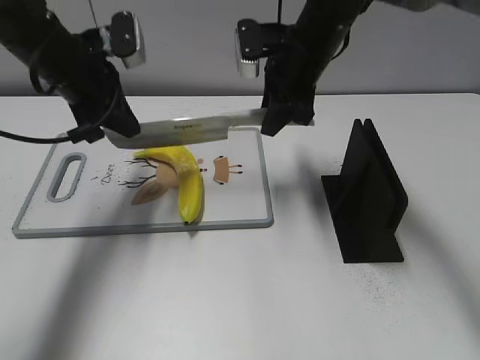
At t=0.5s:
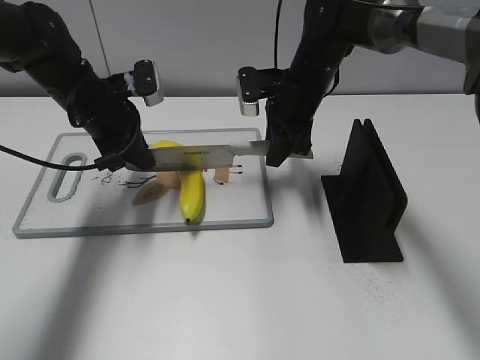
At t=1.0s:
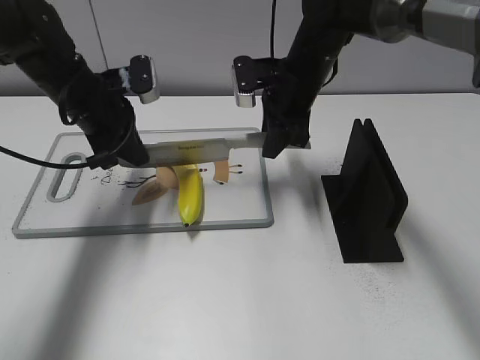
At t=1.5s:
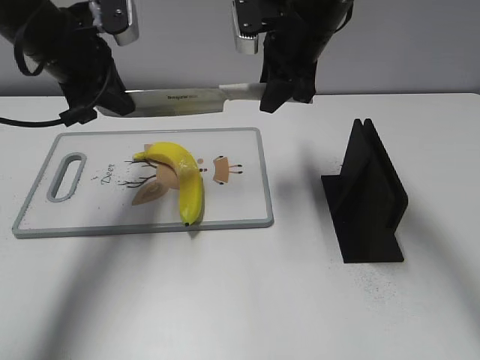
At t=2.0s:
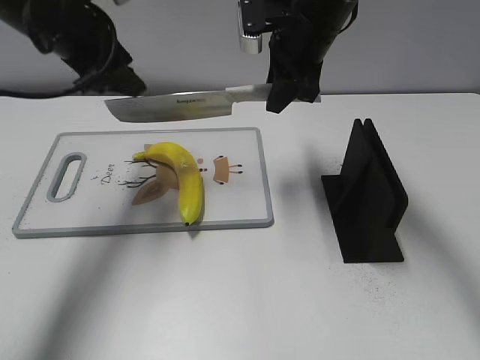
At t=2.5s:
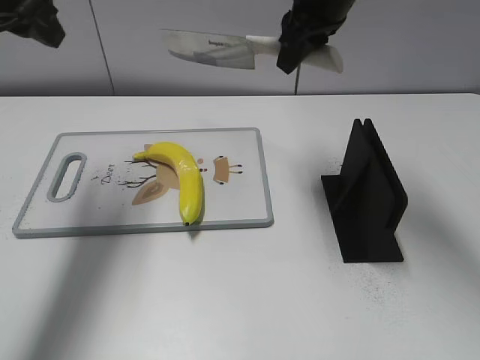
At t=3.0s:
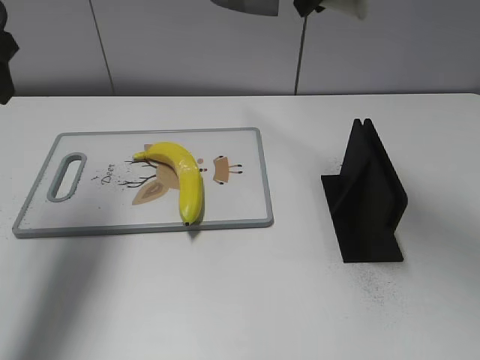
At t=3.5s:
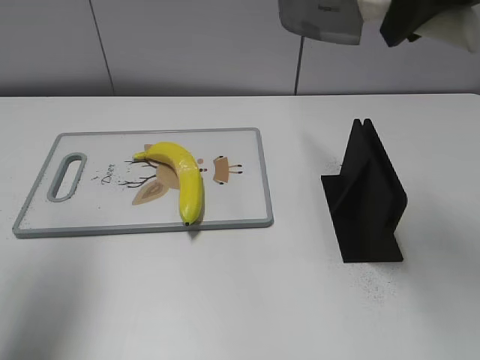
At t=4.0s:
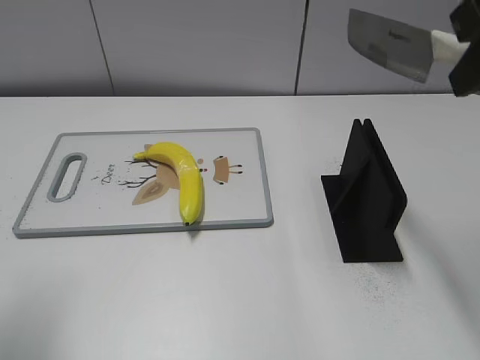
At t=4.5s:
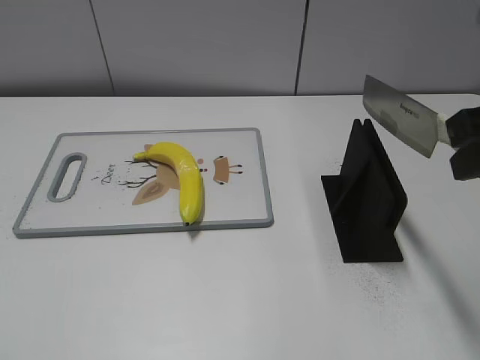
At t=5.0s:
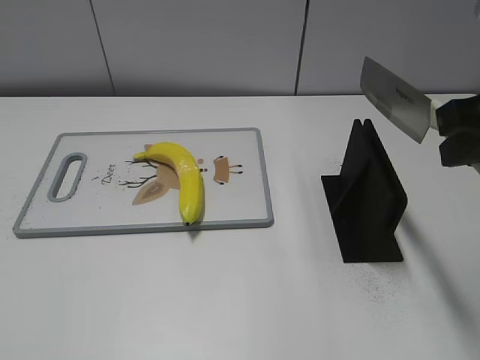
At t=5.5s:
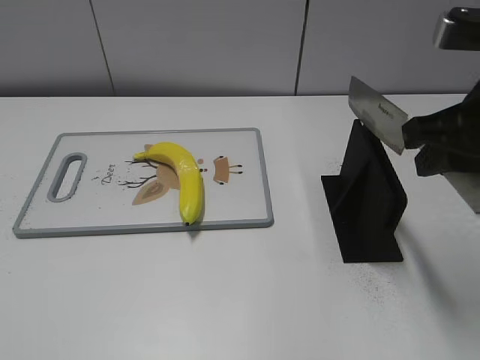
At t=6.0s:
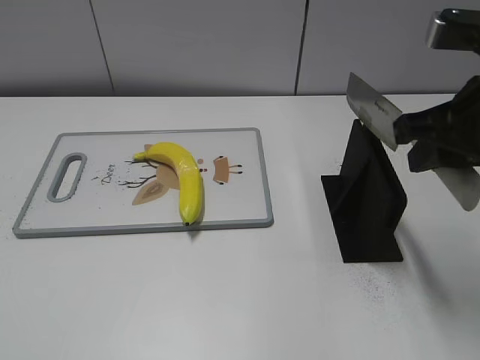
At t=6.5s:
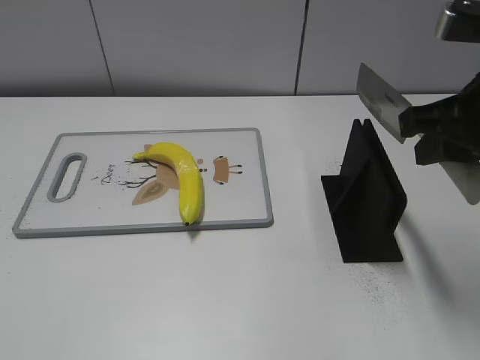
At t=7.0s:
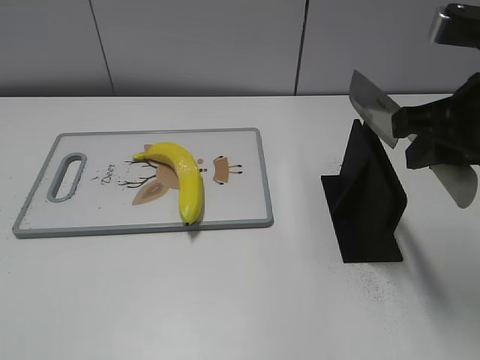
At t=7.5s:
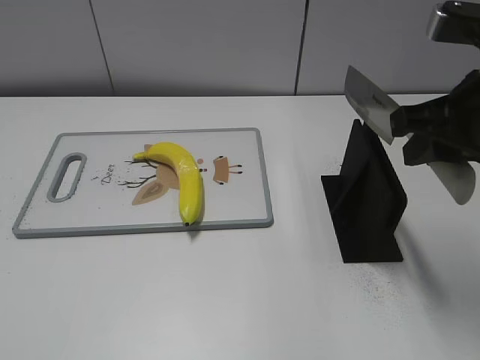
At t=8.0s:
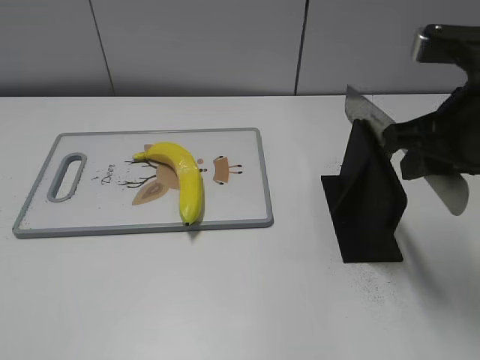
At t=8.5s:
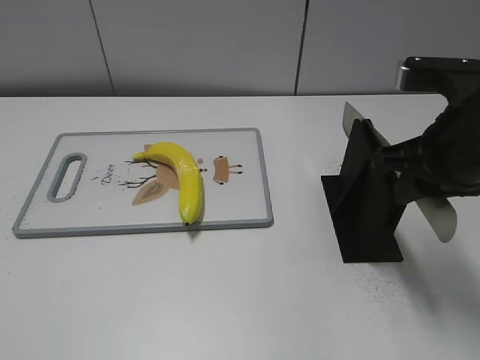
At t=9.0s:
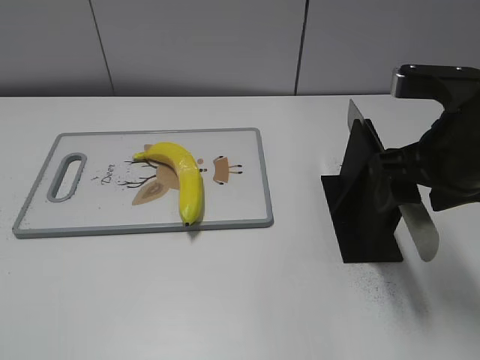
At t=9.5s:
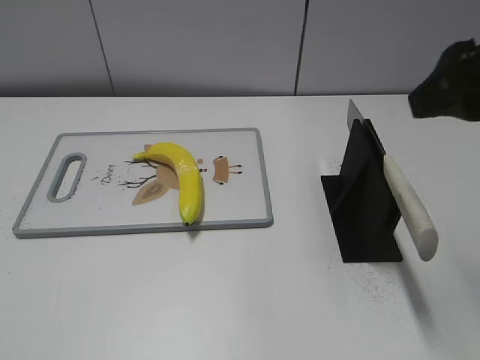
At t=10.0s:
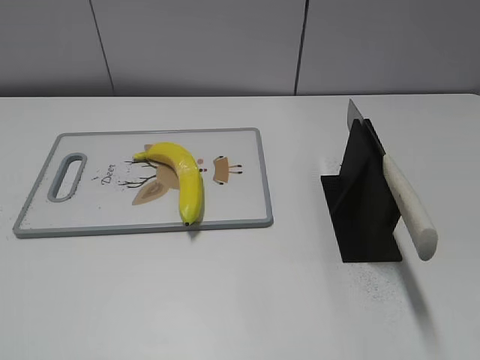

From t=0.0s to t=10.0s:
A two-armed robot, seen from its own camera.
Task of the whole recording: cut plastic banana.
Step, from t=0.0s to t=2.0s: Lift the knife with your right hand.
Step, from t=2.5s to t=3.5s: Cut the banana with your right hand.
Step, from t=4.0s to t=4.5s: Lift the knife with your right hand.
From t=0.0s to t=2.0s: The right gripper moves some 5 cm downward and comes back, while the left gripper goes some 5 cm upward, and opens its fingers.
From t=2.0s to t=4.0s: The right gripper heads backward, upward and to the right, covering approximately 25 cm. Meanwhile the left gripper shifts some 25 cm backward and to the left.
From t=4.0s to t=6.0s: The right gripper moves downward, roughly 10 cm.
From t=6.0s to t=8.0s: The grippers stay close to where they were, moving slightly.
From t=8.0s to t=10.0s: The right gripper moves backward and upward, roughly 15 cm, and opens its fingers.

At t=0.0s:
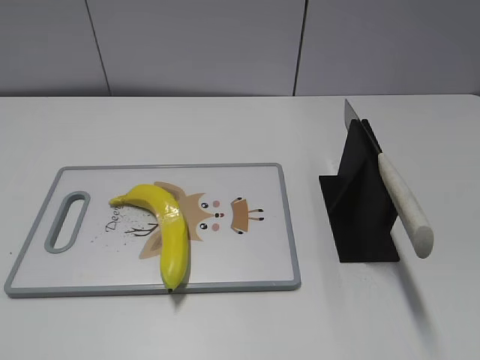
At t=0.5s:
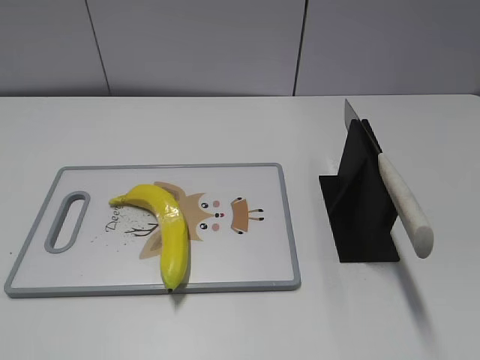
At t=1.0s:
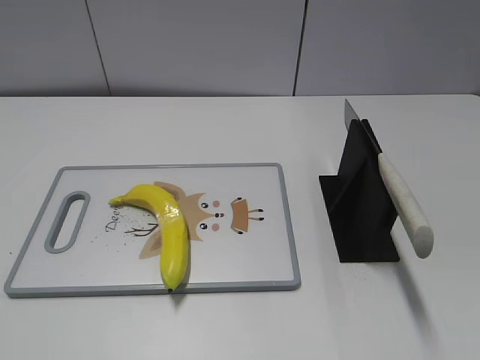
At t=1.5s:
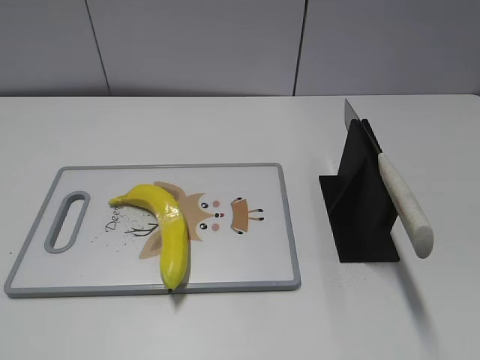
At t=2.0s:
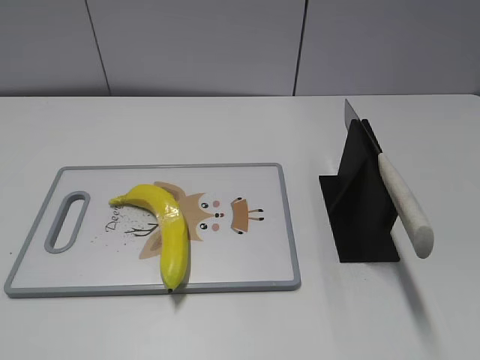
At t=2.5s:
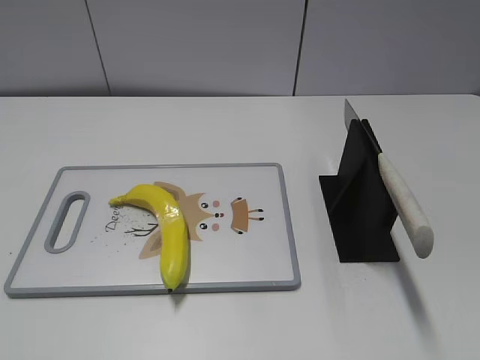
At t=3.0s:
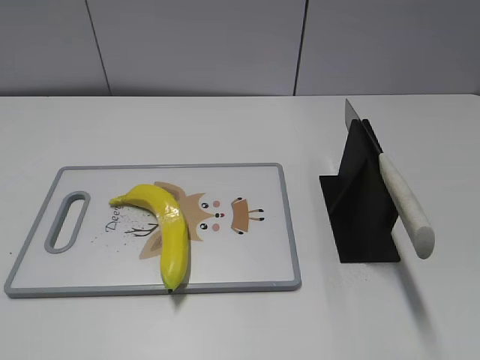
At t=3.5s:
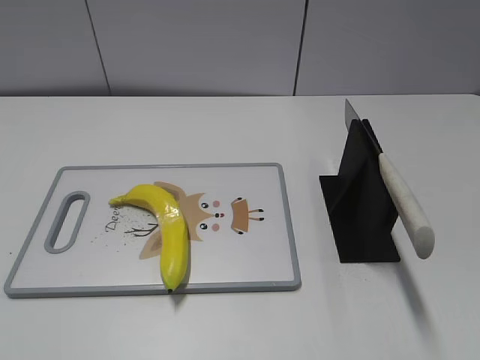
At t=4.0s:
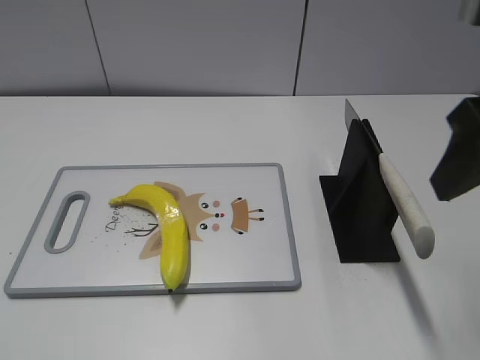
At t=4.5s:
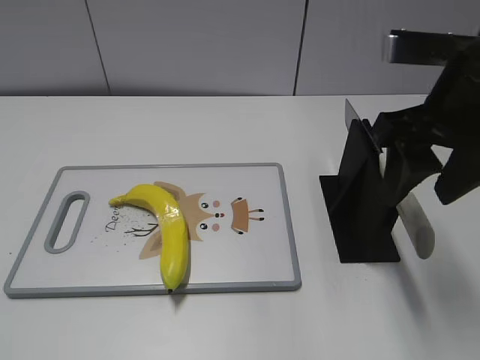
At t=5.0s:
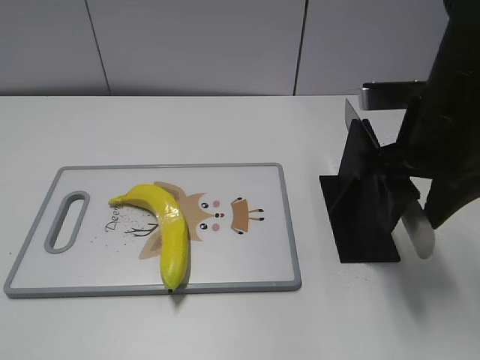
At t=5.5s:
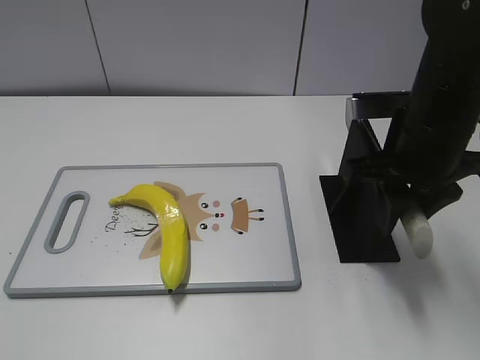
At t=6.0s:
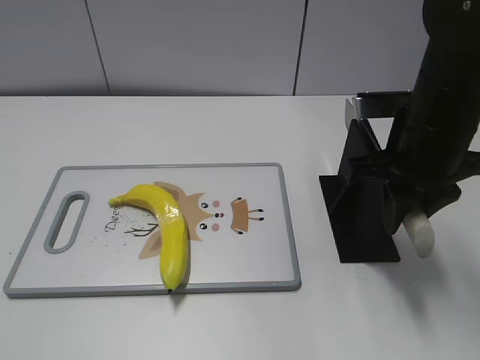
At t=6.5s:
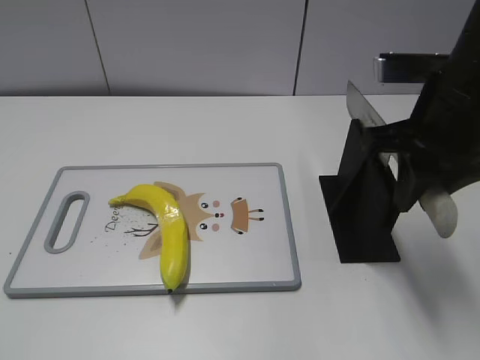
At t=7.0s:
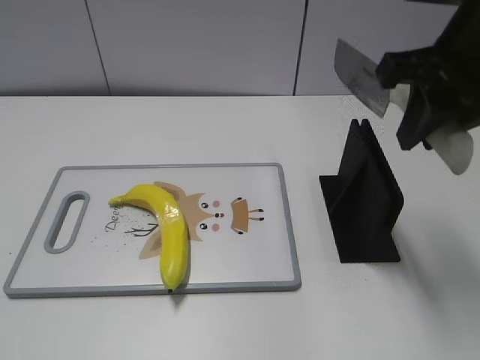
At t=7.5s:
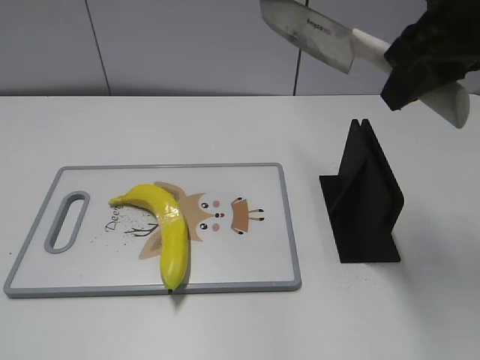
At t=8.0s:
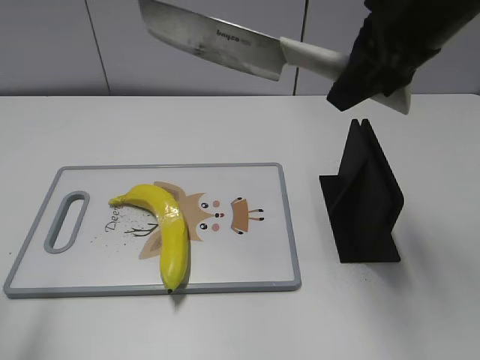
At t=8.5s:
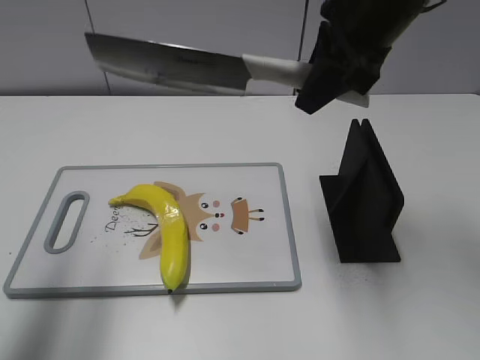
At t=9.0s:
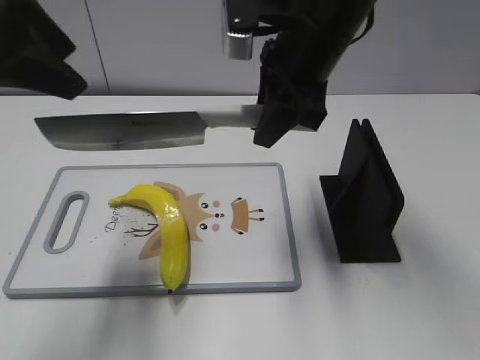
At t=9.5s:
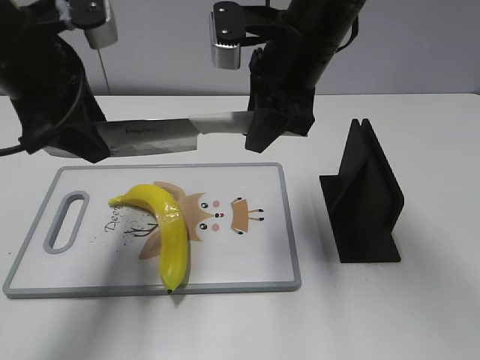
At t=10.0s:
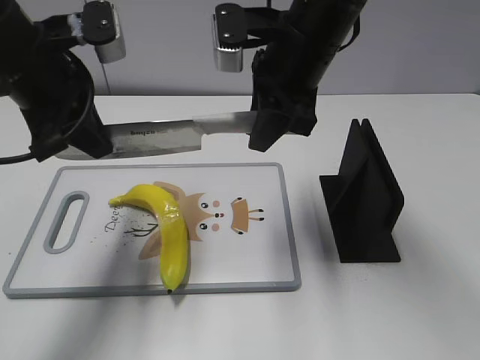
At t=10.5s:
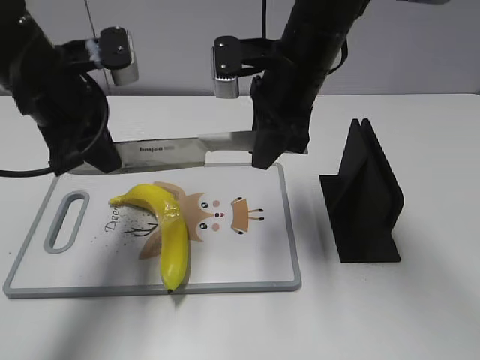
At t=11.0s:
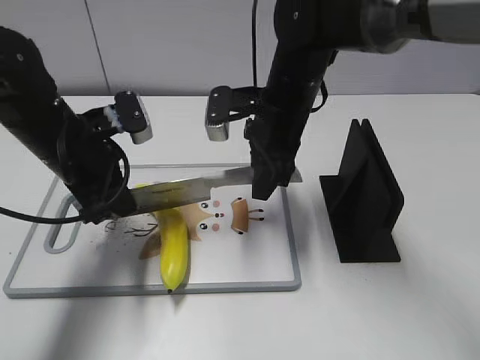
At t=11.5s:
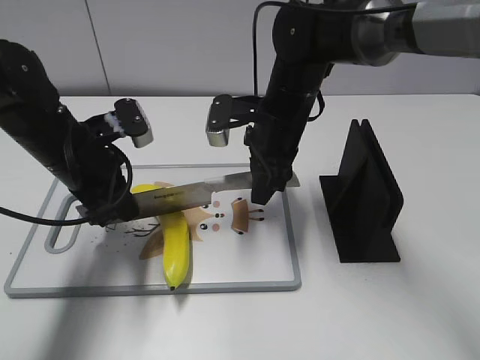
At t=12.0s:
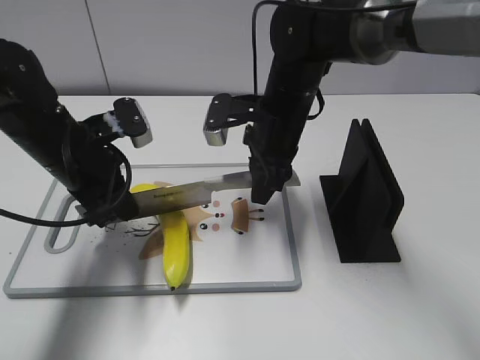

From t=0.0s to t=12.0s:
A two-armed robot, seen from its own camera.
Task of the whole recording: cut plastic banana.
Step, from t=0.0s to t=6.5s: Grab the knife handle with your right hand.
From t=2.0s to t=4.0s: The right gripper goes about 20 cm forward and to the left.
From t=4.0s to t=6.0s: The right gripper shifts about 15 cm downward and forward, and closes.
From t=6.0s to t=8.0s: The left gripper travels forward and upward by approximately 15 cm; the right gripper goes approximately 10 cm upward.
From t=8.0s to t=10.0s: The left gripper shifts some 25 cm forward and to the right, and closes its fingers. Meanwhile the right gripper heads to the left, downward and forward, covering approximately 10 cm.
From t=10.0s to t=12.0s: Both grippers move downward, approximately 10 cm.

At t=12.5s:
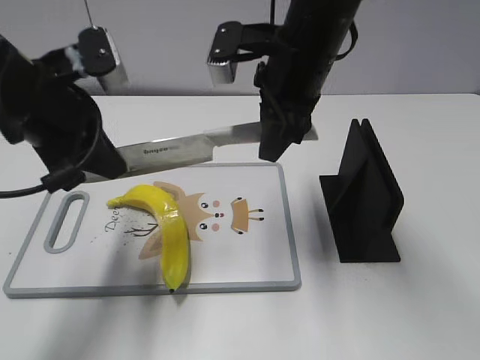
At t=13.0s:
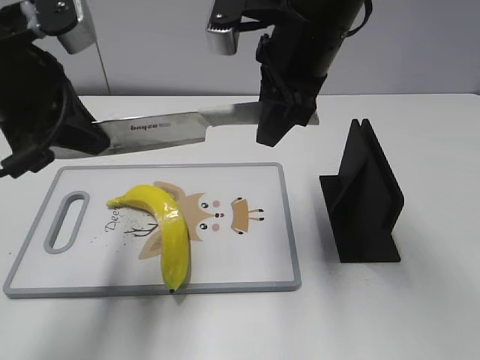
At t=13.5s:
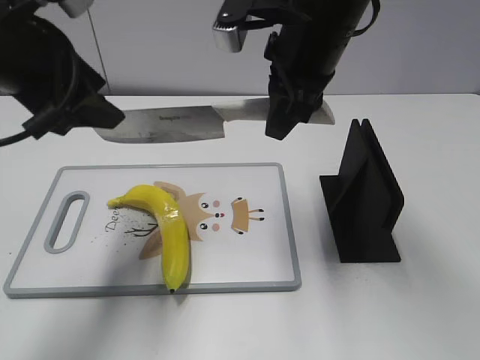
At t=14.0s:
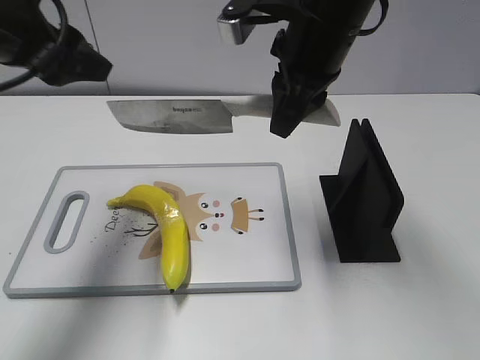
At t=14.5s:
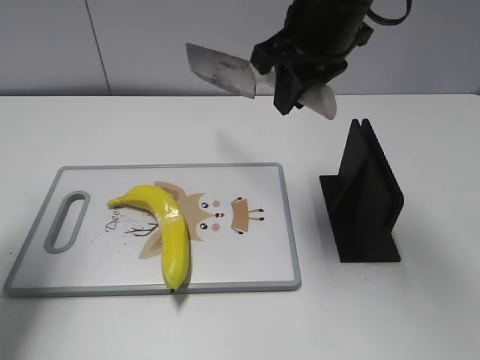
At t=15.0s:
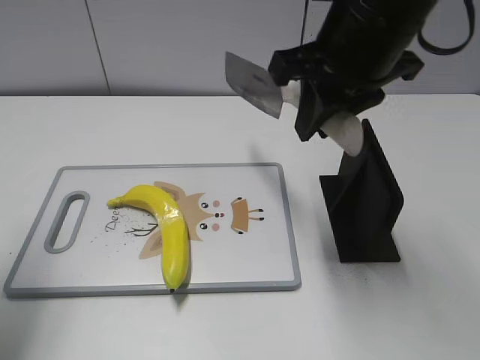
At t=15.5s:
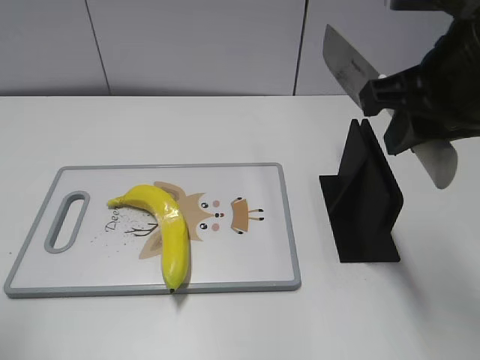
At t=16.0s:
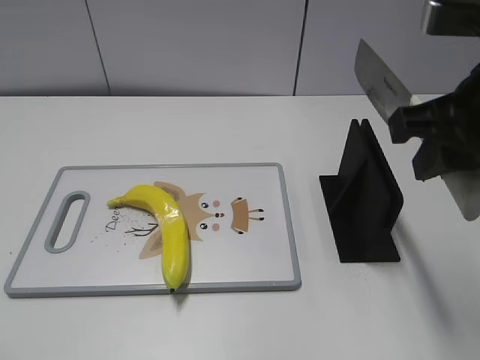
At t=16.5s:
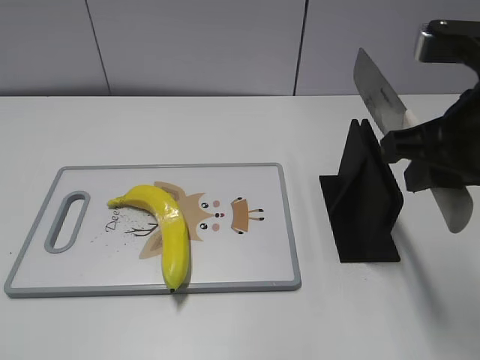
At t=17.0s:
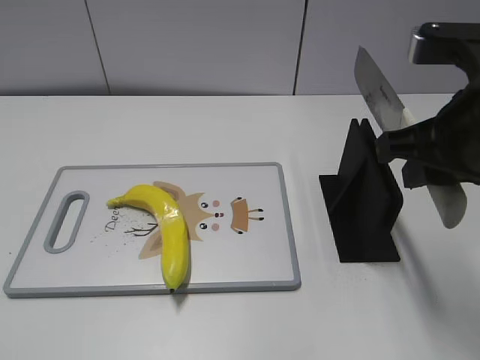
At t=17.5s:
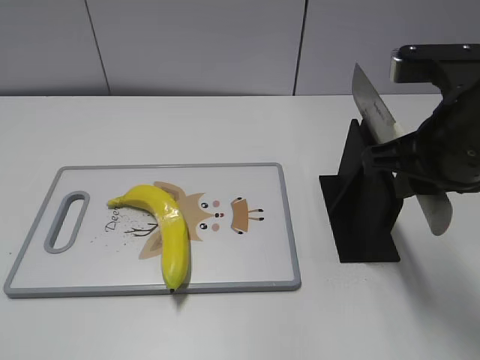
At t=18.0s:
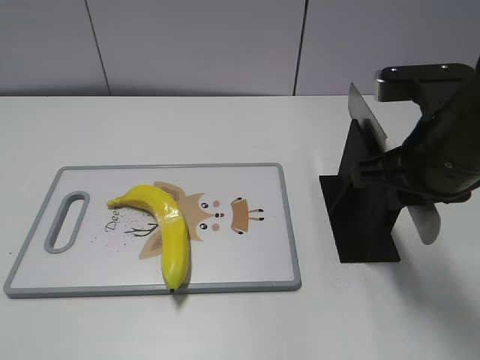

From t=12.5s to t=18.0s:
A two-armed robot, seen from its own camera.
Task of the whole recording: cut plastic banana.
Step, from t=13.0s to t=14.5s: Cut the banana with your right hand.
Step, from t=15.0s to t=16.5s: Lift the knife with your right hand.
From t=12.5s to t=14.5s: The left gripper is displaced to the left and upward by some 15 cm, and opens its fingers, while the right gripper shifts by approximately 5 cm.
From t=14.5s to t=16.0s: The right gripper is displaced backward and to the right by about 15 cm. Meanwhile the left gripper heads backward, covering some 20 cm.
From t=16.0s to t=18.0s: The right gripper moves downward, about 5 cm.
